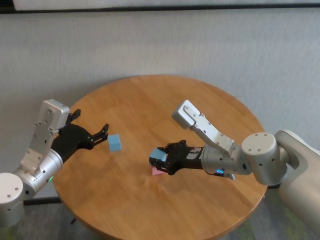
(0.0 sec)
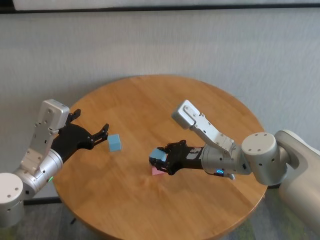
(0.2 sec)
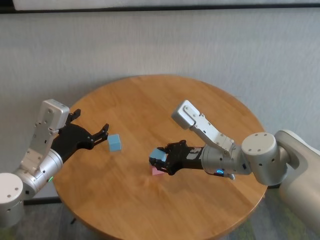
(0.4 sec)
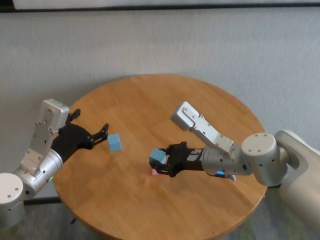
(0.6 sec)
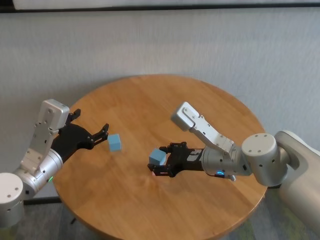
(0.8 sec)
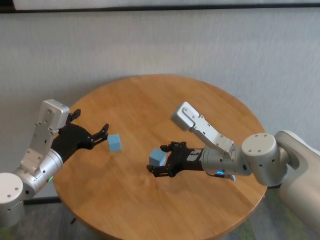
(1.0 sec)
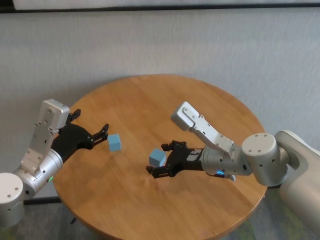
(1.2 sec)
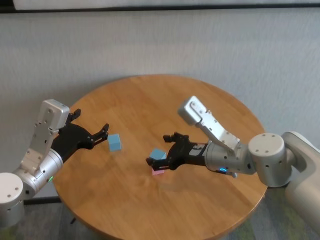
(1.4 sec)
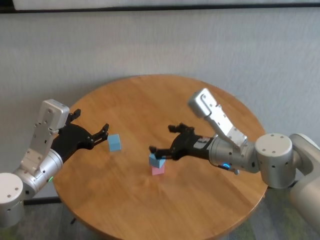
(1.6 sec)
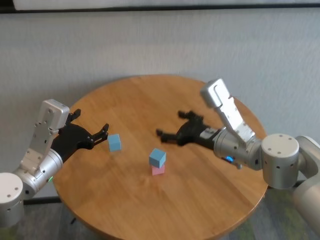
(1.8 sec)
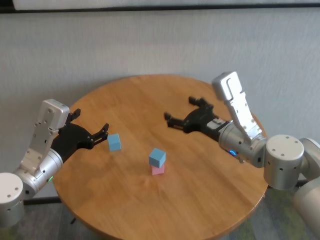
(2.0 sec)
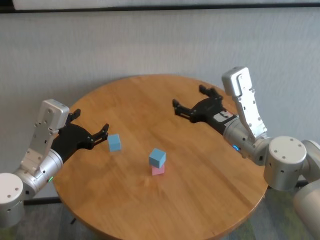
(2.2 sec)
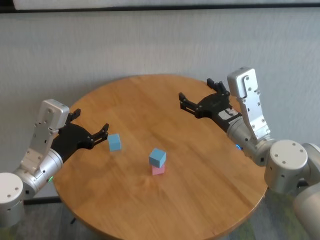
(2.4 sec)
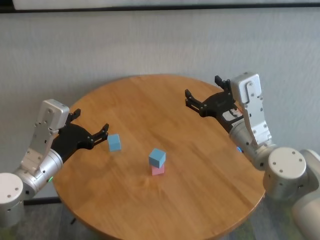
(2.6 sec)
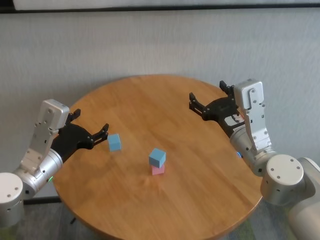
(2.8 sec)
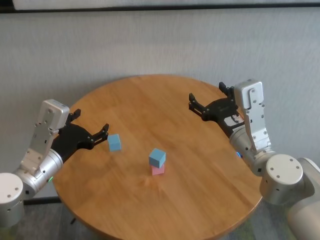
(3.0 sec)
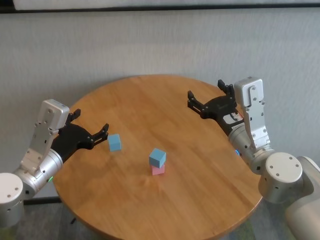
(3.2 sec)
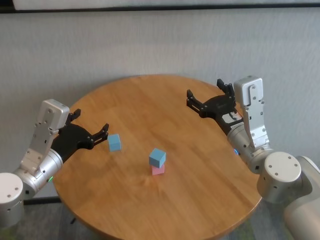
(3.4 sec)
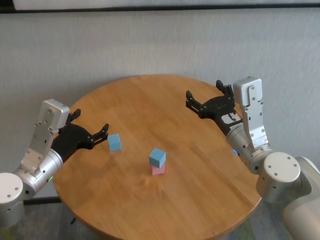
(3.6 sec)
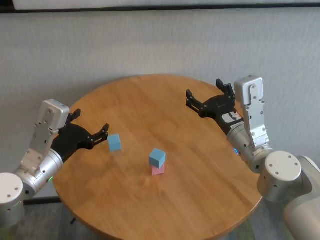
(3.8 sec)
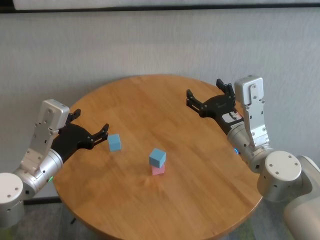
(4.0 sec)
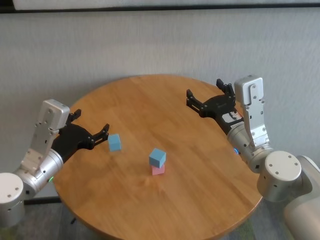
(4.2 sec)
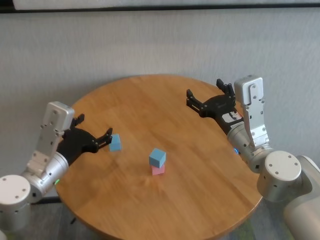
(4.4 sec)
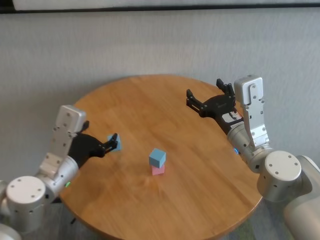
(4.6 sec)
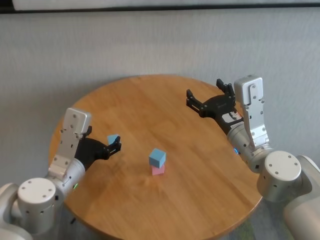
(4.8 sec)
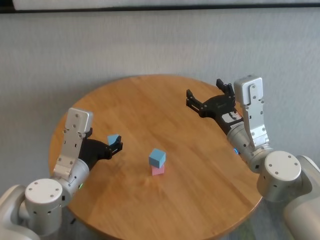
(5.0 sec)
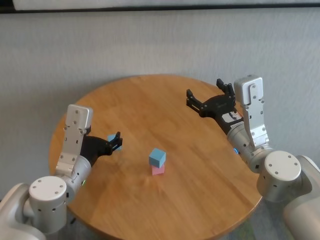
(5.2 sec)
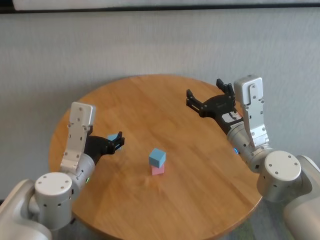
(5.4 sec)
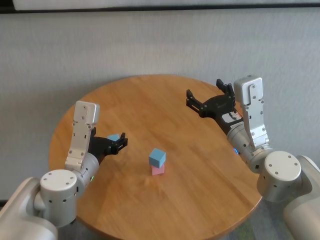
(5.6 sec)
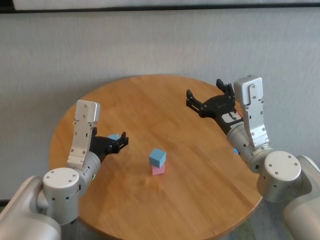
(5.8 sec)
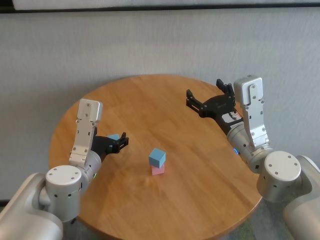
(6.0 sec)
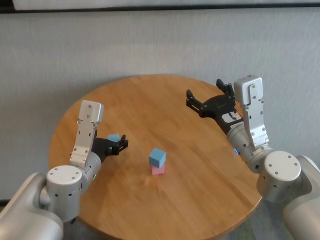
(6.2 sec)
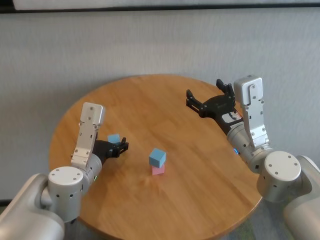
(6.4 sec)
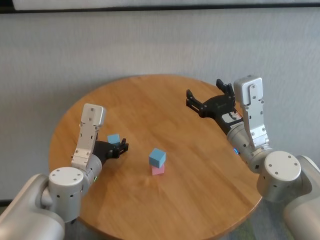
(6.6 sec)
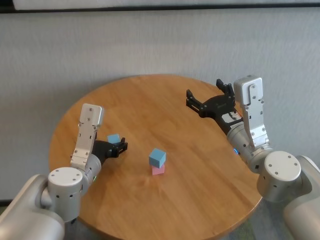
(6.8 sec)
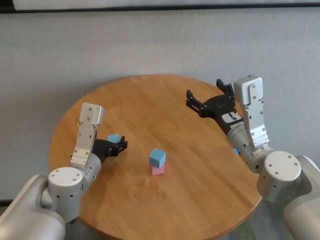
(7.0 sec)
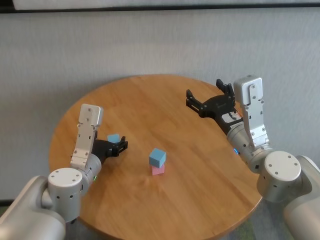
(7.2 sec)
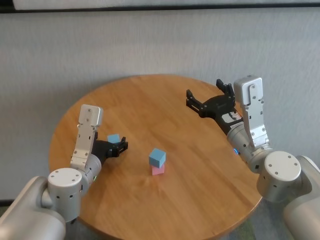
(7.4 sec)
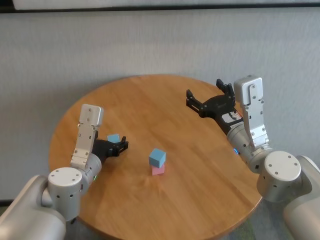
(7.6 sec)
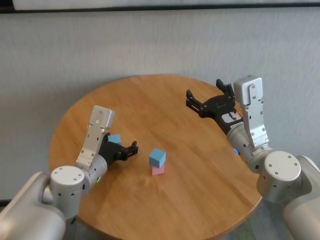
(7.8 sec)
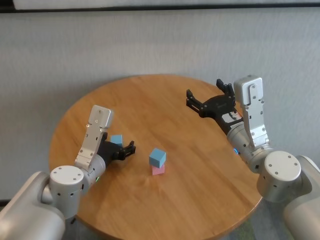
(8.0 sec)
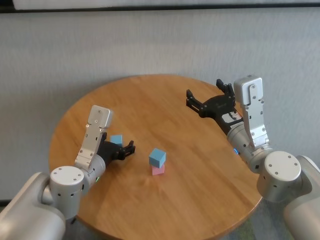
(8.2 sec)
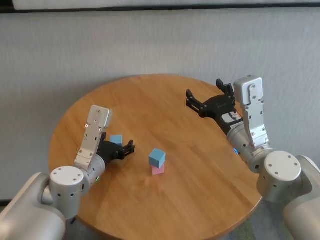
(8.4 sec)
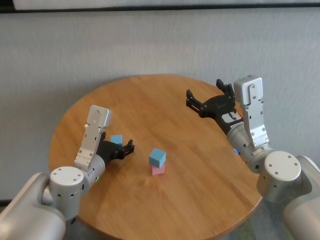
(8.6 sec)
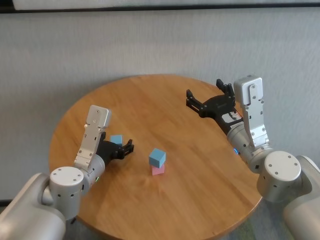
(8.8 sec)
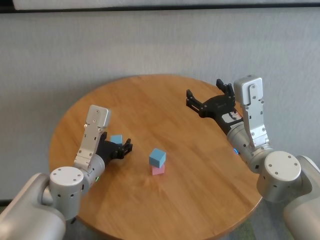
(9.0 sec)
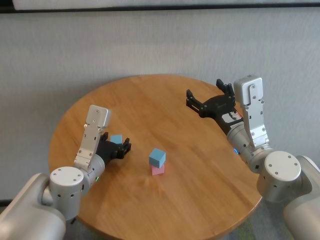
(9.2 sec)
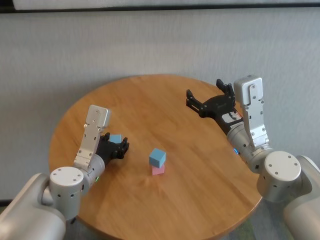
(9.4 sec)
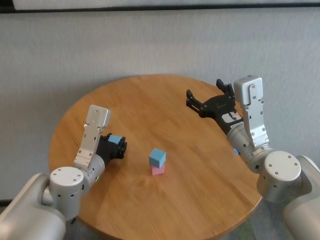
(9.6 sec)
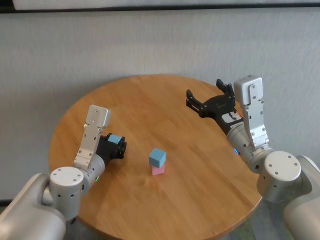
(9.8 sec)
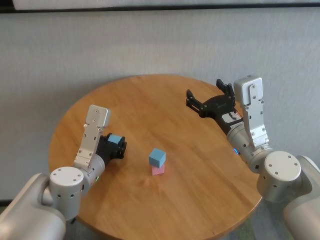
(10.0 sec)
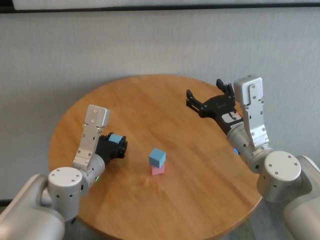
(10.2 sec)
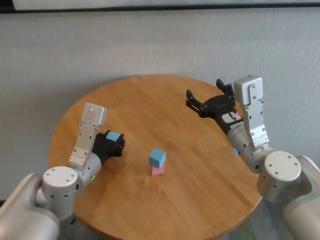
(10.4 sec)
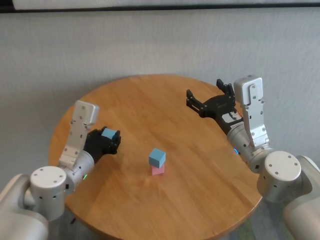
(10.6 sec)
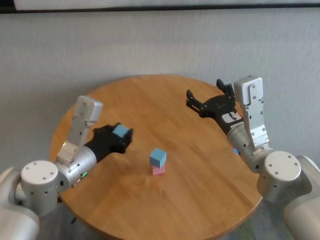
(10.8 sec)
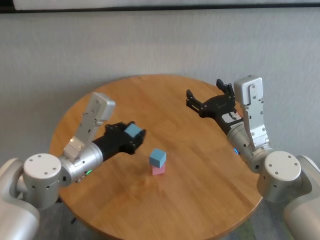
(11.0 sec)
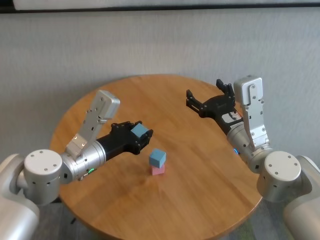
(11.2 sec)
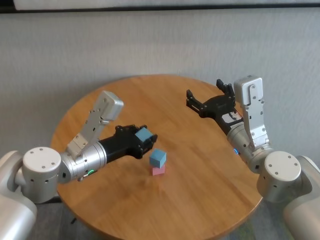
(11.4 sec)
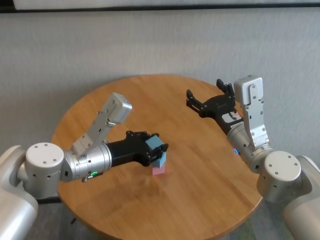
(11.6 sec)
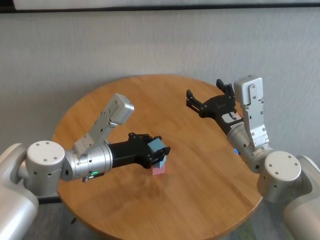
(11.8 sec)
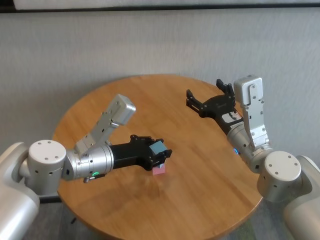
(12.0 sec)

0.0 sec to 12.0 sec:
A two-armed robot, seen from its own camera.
Task of the whole recording: stack building blocks on the table.
Step, 1.2 sec to 9.8 sec: Grasp the blue building block with left gripper.

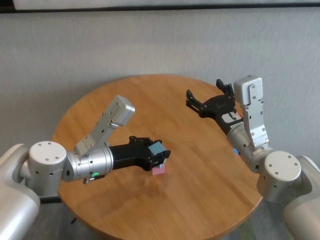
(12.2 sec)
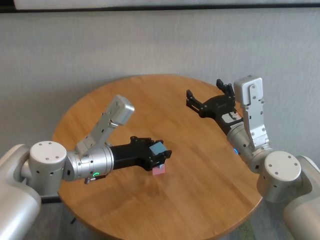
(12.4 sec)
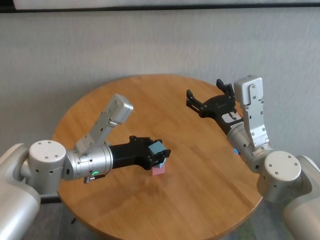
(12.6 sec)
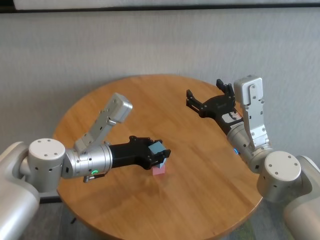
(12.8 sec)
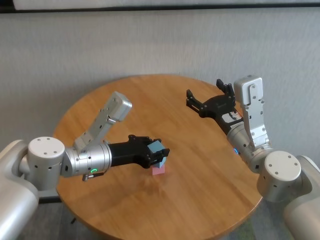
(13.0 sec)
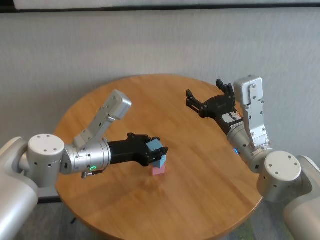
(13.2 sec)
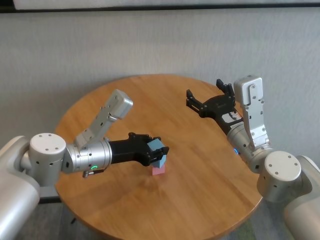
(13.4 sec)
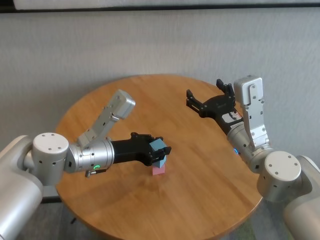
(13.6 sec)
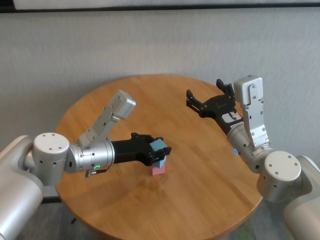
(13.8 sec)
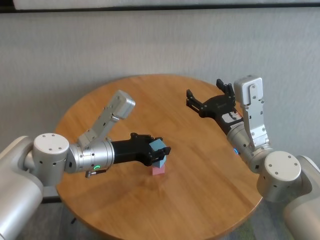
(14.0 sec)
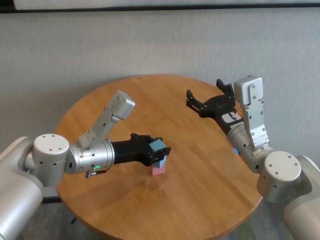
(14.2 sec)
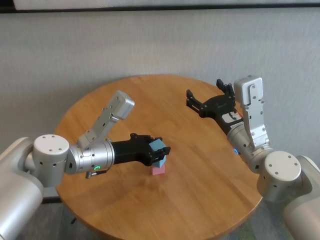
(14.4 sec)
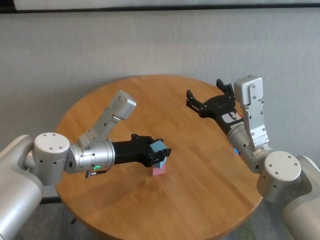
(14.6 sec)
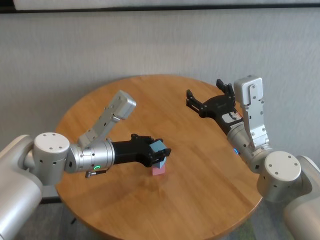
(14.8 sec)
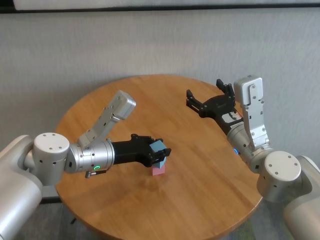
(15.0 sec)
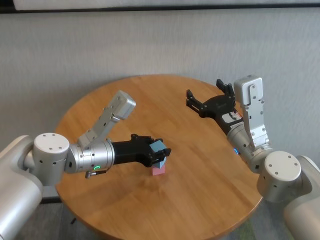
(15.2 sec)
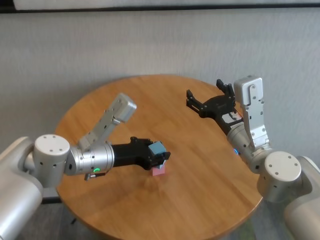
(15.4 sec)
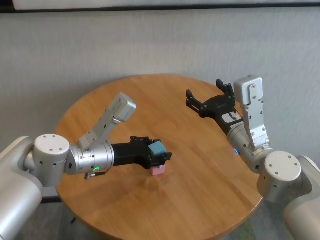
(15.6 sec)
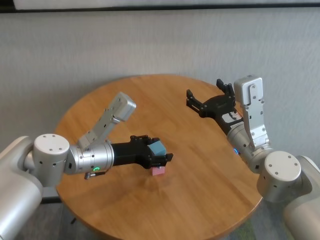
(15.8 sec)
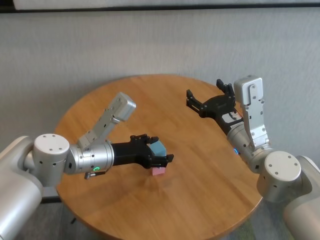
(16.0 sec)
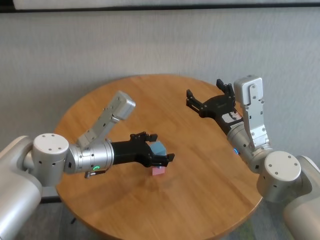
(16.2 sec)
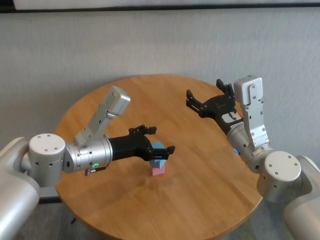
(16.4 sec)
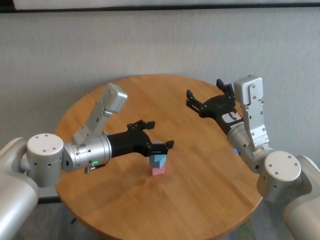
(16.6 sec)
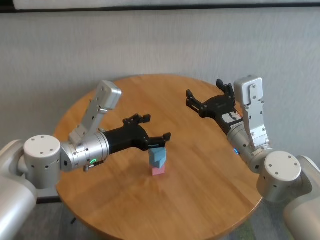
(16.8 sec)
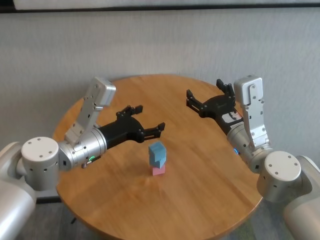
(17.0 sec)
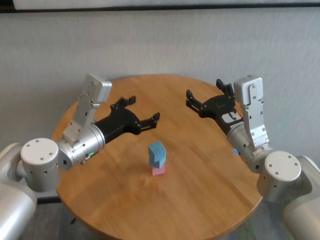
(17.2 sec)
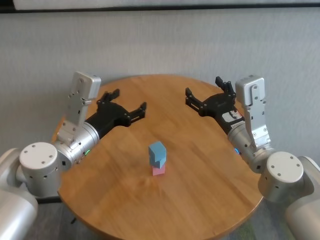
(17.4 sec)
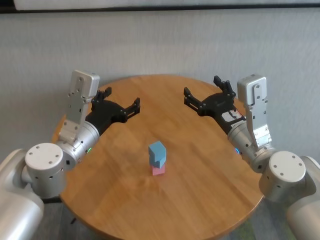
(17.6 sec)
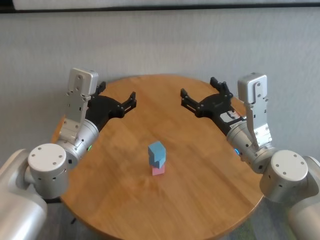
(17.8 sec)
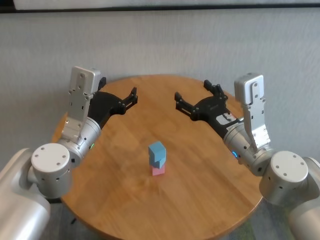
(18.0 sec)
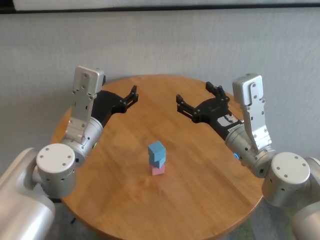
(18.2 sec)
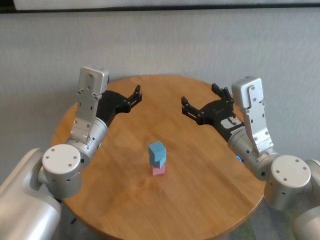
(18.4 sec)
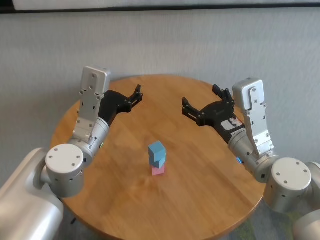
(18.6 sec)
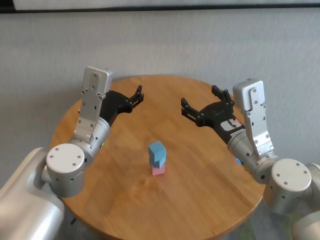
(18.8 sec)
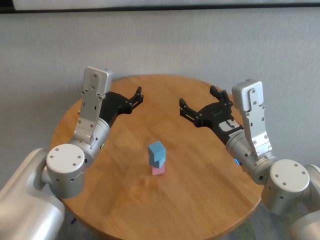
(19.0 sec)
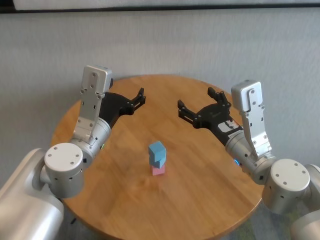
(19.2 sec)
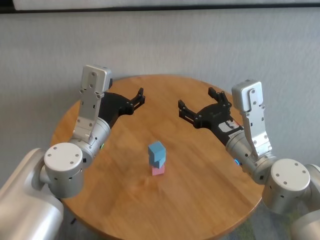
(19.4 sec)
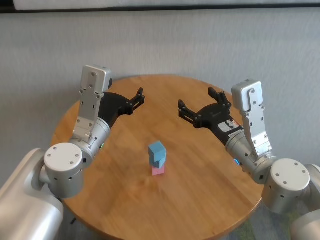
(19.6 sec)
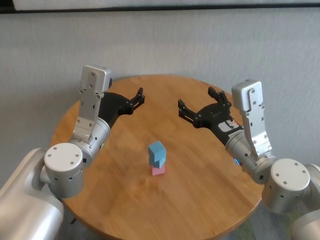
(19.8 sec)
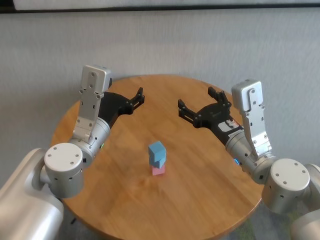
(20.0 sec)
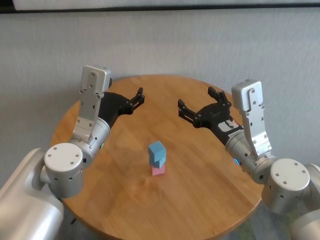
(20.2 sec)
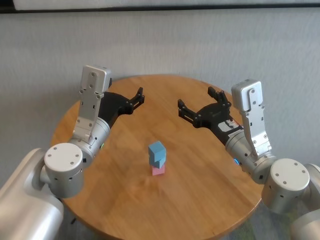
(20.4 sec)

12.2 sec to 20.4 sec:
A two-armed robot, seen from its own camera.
Task of the whole recording: stack building blocks on the table.
Step, 12.2 sec to 16.0 sec: Place the blue building block on the blue building blocks with left gripper.
